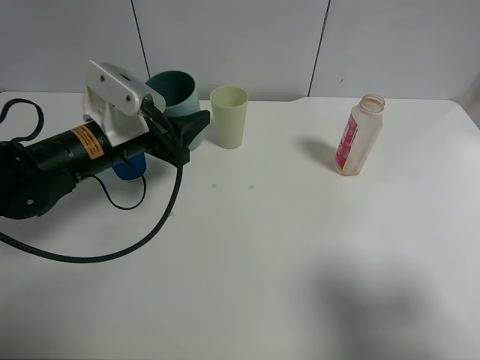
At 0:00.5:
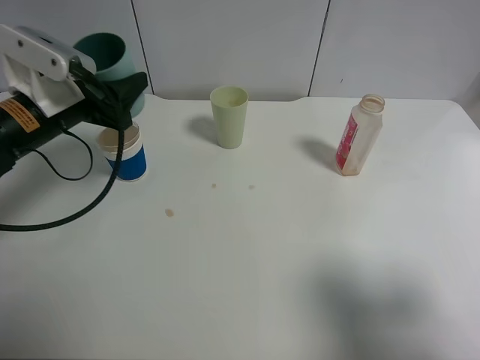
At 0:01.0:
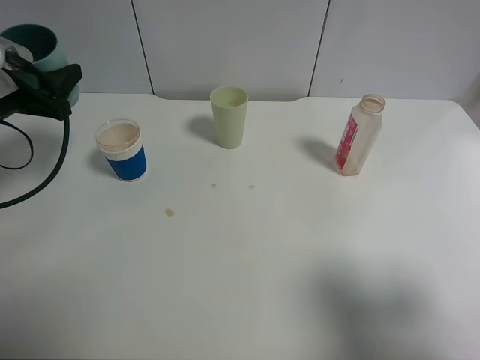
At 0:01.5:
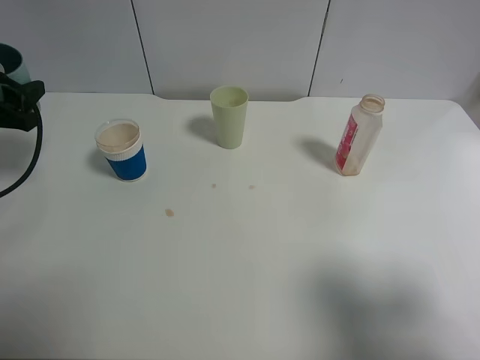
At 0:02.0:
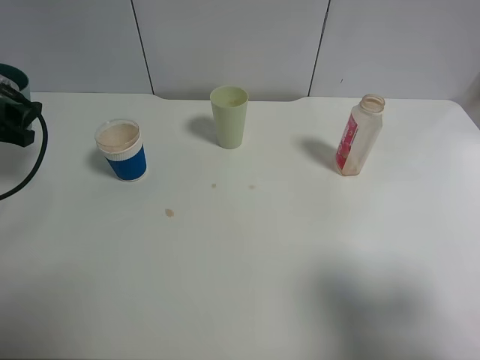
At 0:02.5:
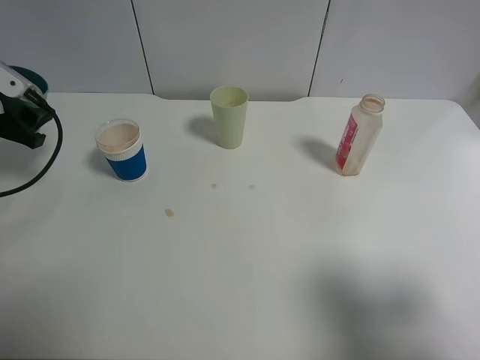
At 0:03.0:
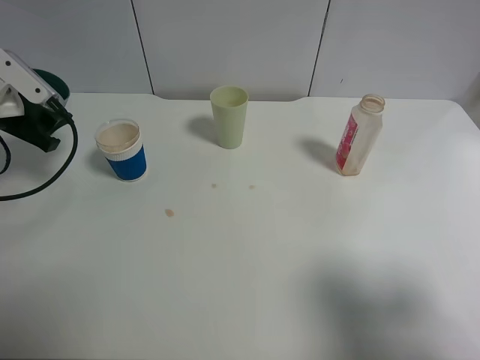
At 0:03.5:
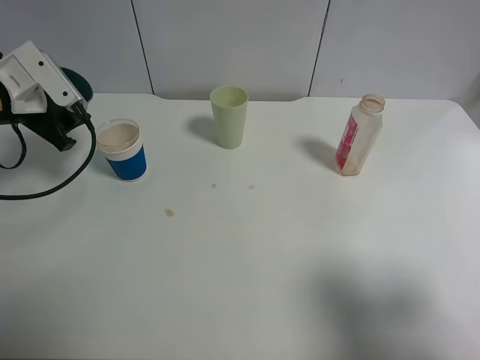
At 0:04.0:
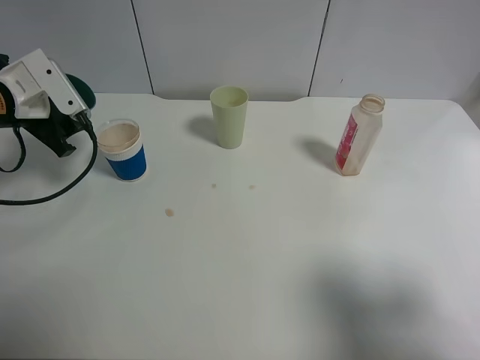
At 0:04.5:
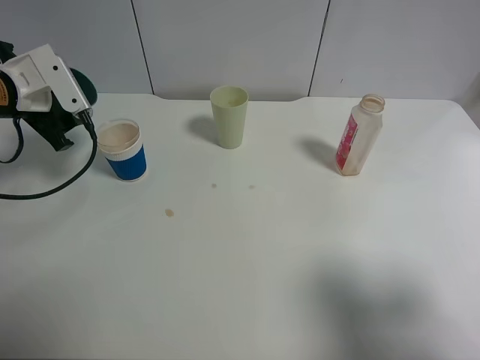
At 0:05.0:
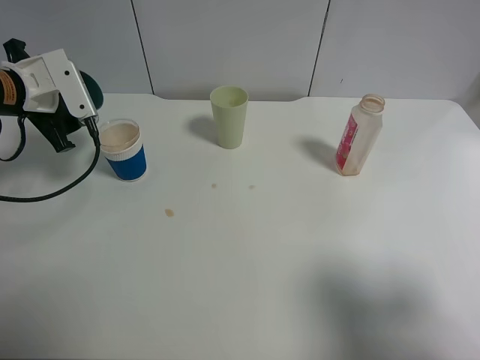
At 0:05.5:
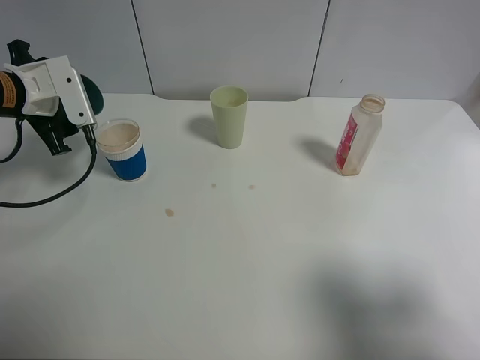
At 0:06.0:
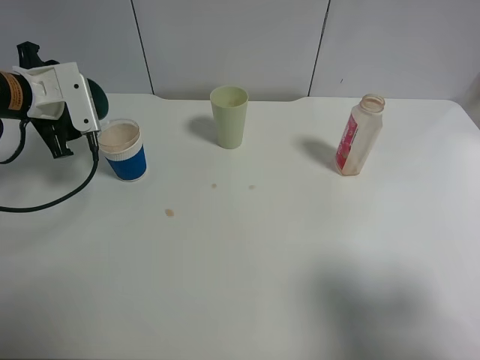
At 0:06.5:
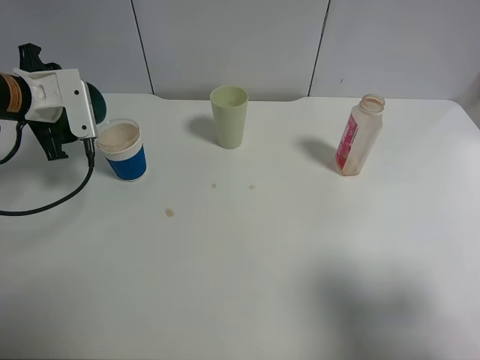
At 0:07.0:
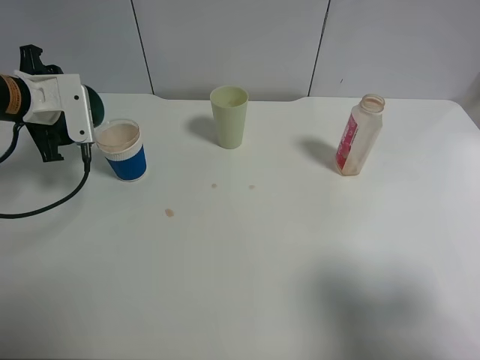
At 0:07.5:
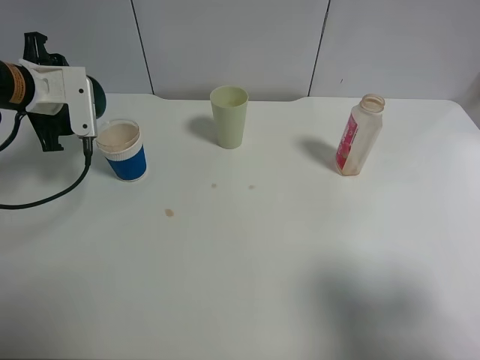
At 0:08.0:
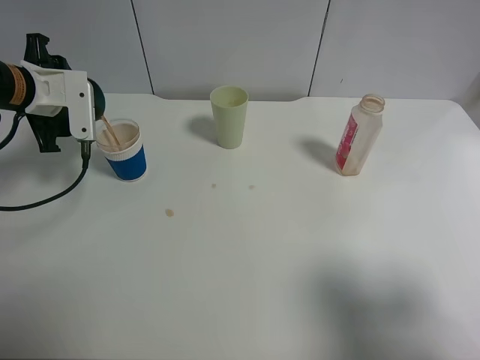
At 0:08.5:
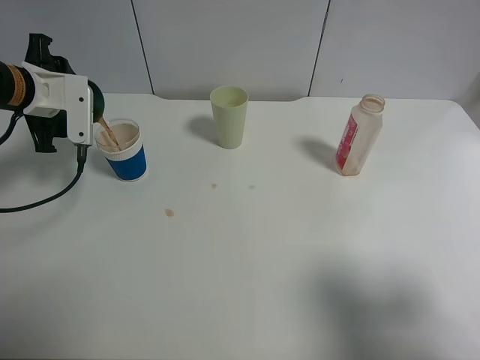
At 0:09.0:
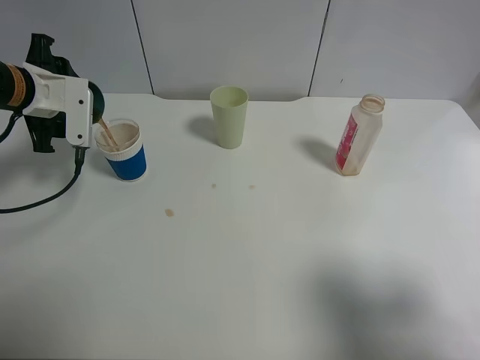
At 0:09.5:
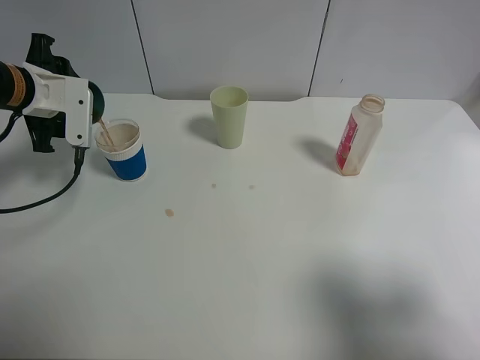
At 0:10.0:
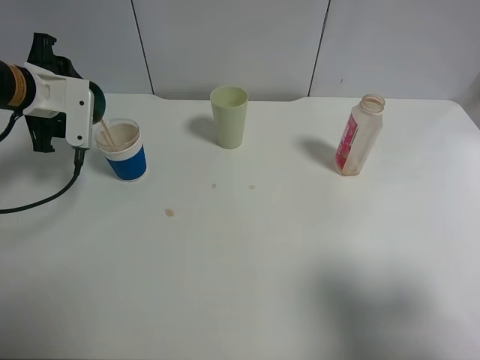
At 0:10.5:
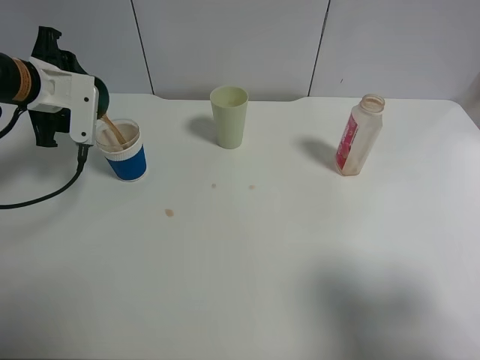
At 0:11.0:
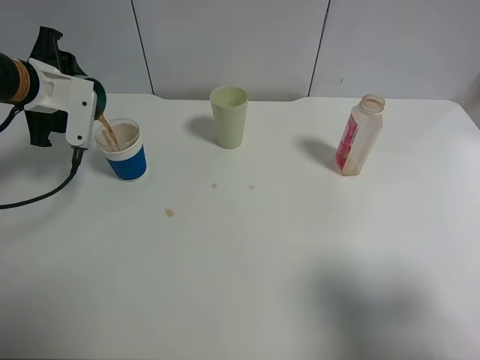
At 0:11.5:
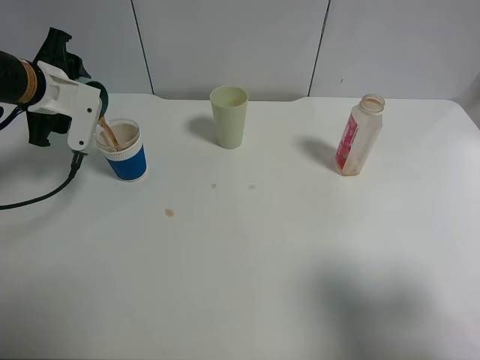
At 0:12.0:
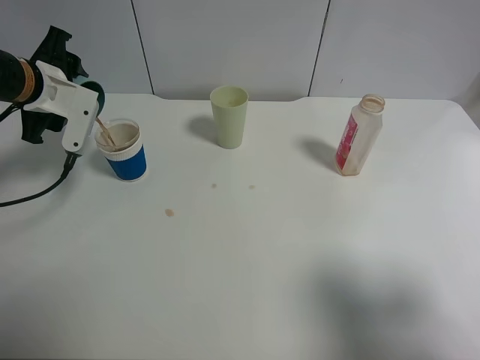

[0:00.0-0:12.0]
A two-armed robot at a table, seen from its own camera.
Task of the whole recording: use a clamp to hold the bottle of the drink, pour the beverage into a random cup, then clamp the cup containing the drink and pour the drink into another random cup.
0:00.0 to 0:02.0: The left gripper goes some 20 cm to the left.
0:02.0 to 0:04.0: The left gripper is displaced to the right by roughly 5 cm.
0:04.0 to 0:06.0: There are only small adjustments of the grippers.
0:06.0 to 0:08.0: The grippers move only a little.
0:08.0 to 0:10.0: The grippers move only a little.
0:10.0 to 0:12.0: The grippers stay close to where they were, moving slightly.

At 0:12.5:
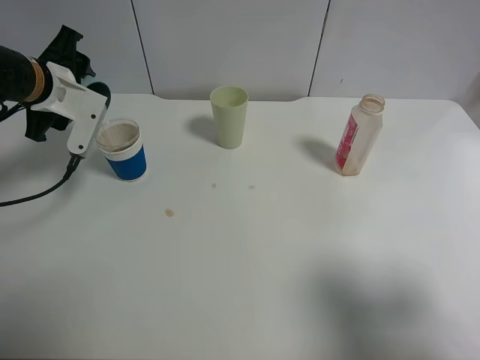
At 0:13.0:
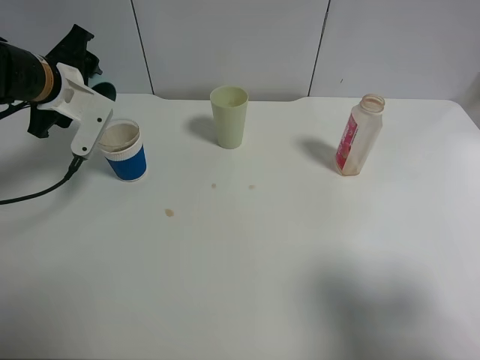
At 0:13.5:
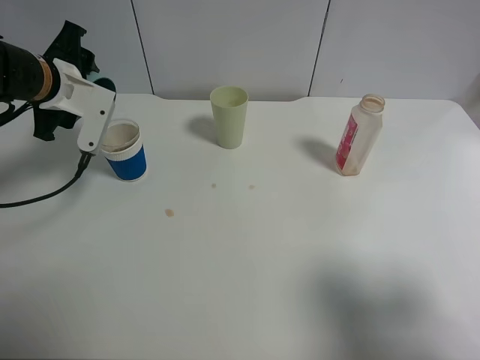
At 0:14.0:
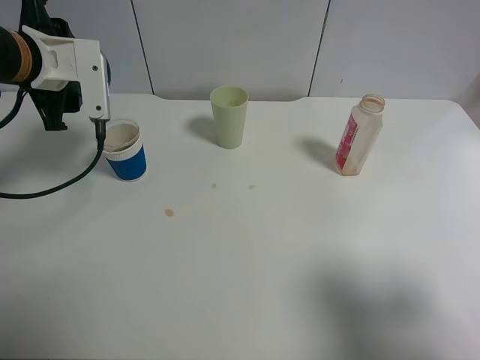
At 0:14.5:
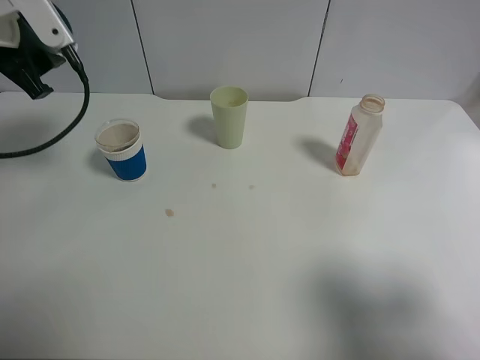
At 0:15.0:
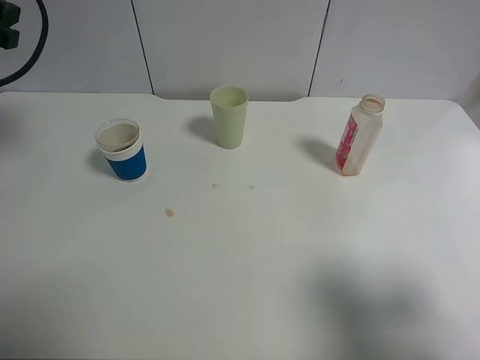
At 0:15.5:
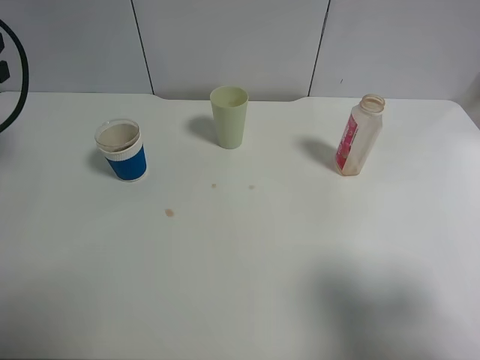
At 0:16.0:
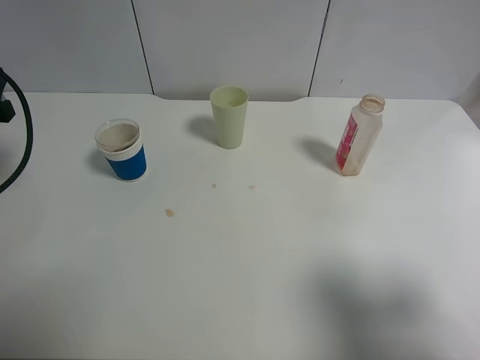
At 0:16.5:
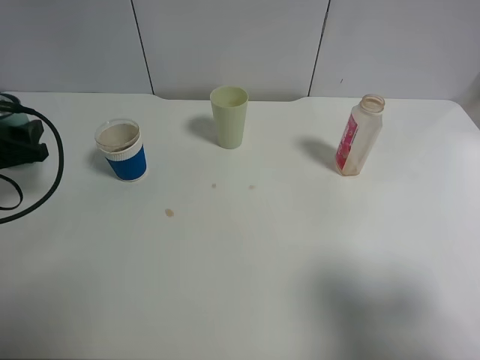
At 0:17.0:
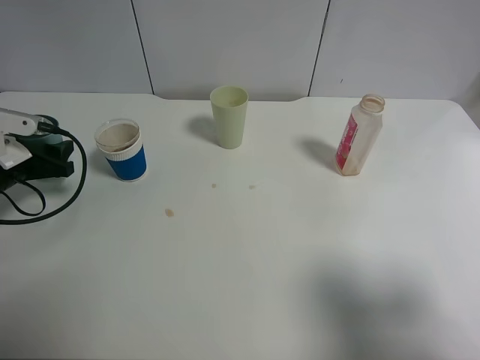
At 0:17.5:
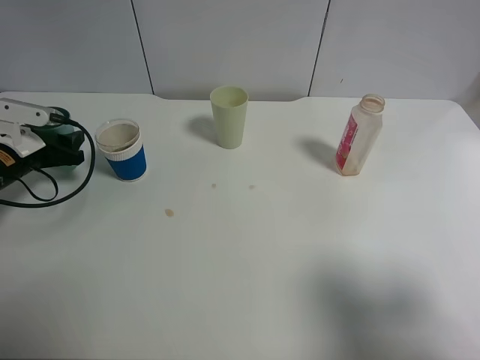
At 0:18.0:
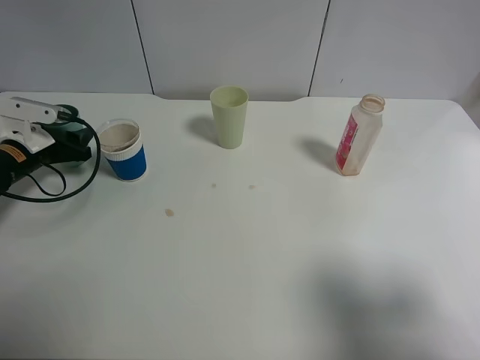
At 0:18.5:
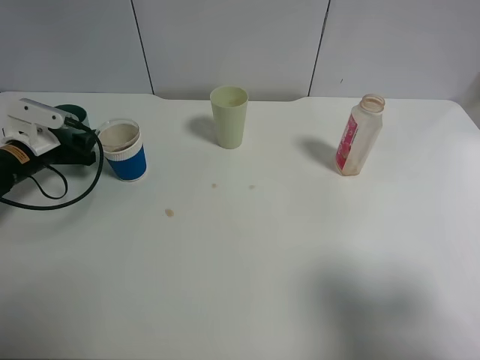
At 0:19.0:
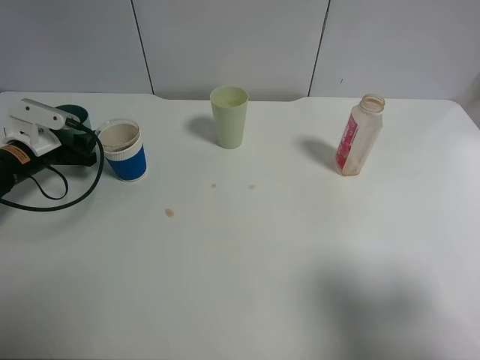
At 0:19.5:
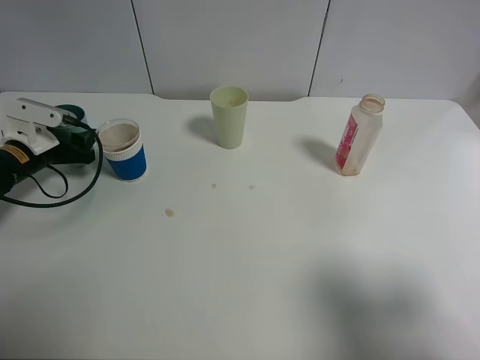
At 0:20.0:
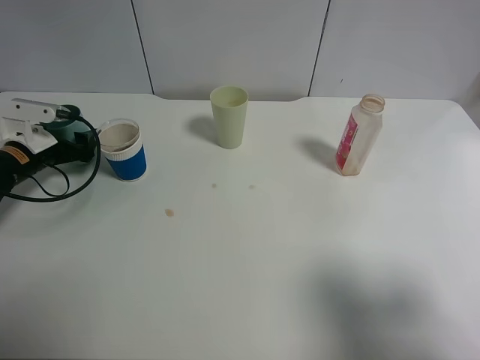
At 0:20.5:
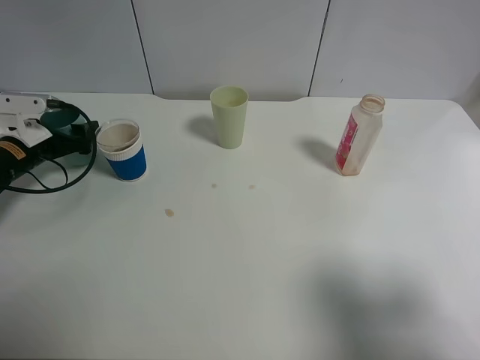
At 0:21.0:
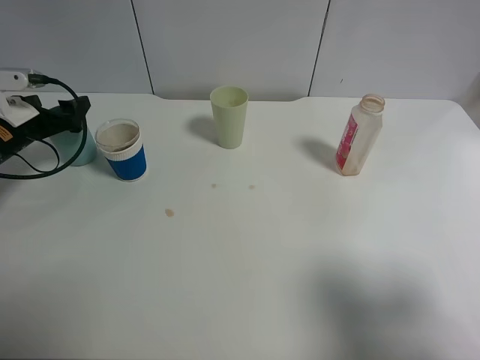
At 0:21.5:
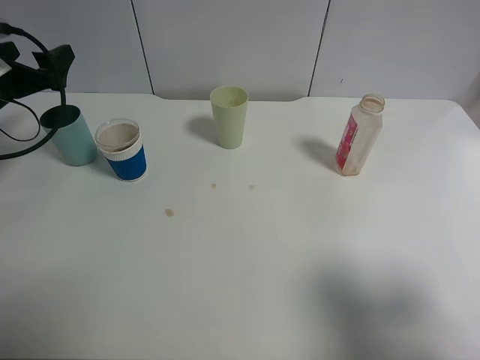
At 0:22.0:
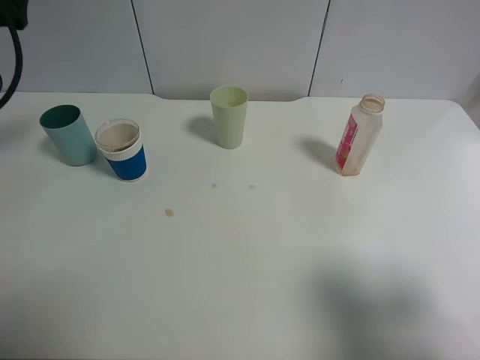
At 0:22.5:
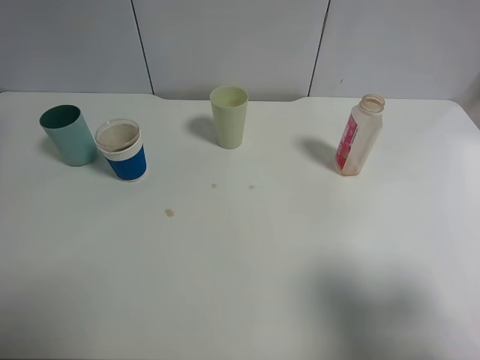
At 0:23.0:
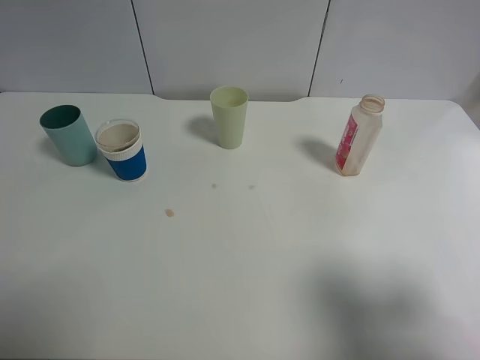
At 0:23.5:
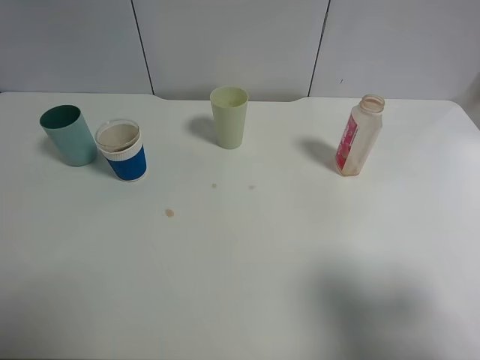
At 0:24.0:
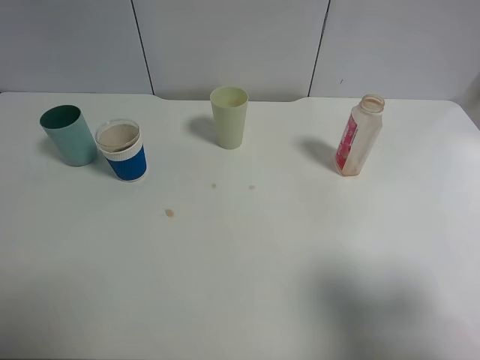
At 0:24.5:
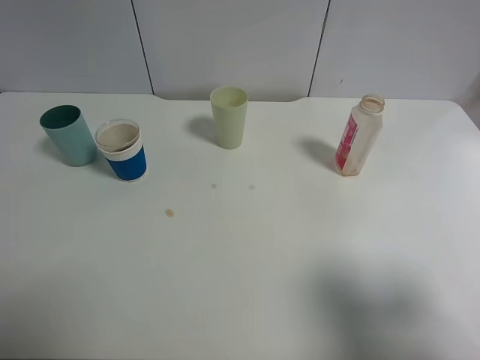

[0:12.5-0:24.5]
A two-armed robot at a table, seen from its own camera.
Task of the whole recording: use a clamp to hold the bottle of the drink, pour the beverage into a random cup, then clamp the cup containing the drink and pour the drink into another random cup.
Step, 0:14.5 to 0:21.5: Place the blue plastic cup on the table with left gripper.
0:12.5 to 0:14.5: The left gripper moves upward, roughly 10 cm.
0:14.5 to 0:16.5: The left gripper travels downward and to the left by approximately 15 cm.
0:16.5 to 0:18.5: The left gripper is displaced forward and downward by approximately 10 cm.
0:18.5 to 0:20.5: The left gripper opens.
0:20.5 to 0:22.5: The left gripper is displaced upward and backward by some 25 cm.

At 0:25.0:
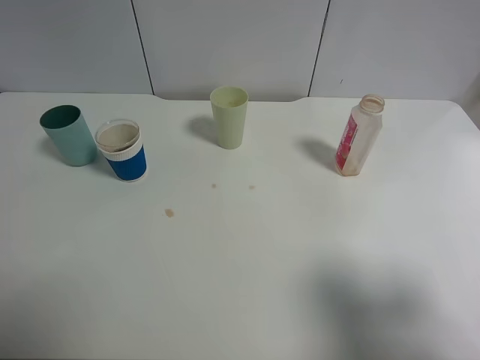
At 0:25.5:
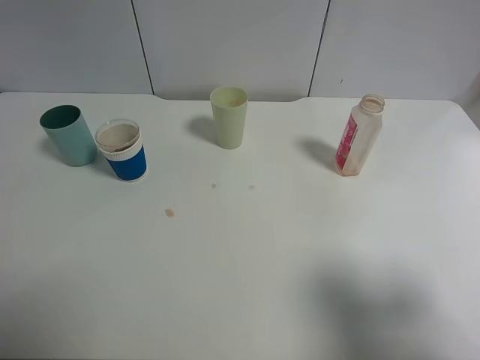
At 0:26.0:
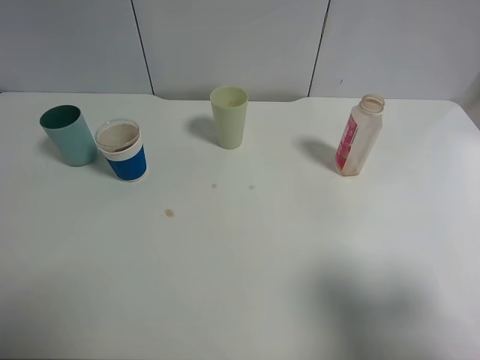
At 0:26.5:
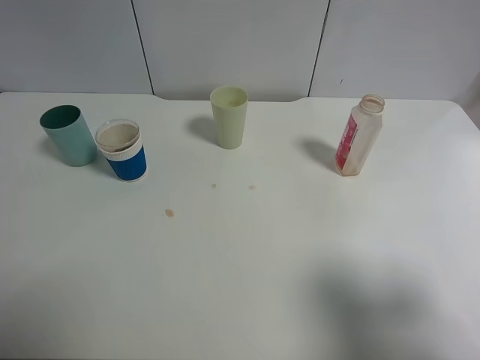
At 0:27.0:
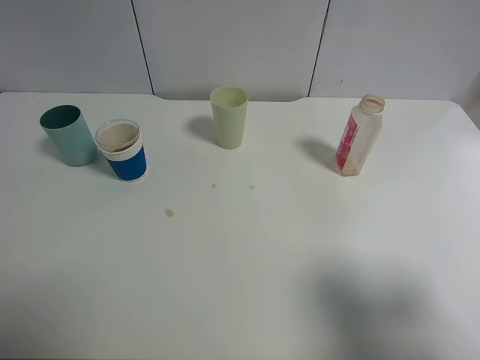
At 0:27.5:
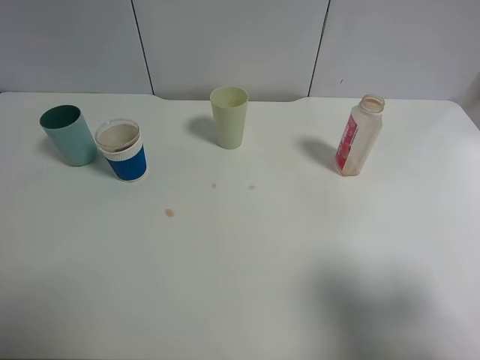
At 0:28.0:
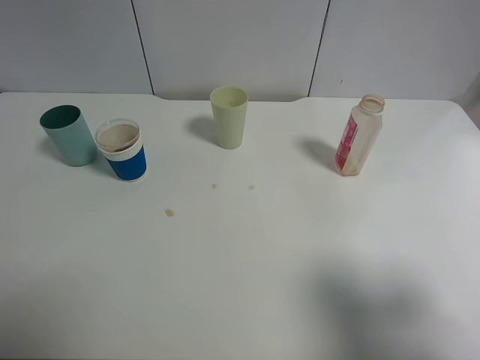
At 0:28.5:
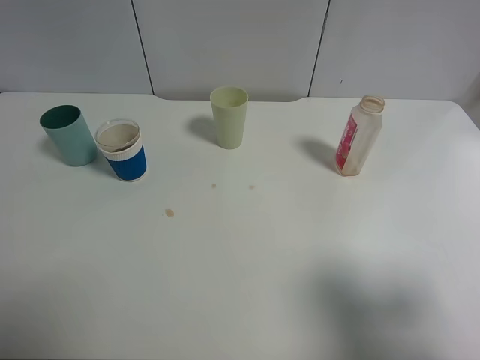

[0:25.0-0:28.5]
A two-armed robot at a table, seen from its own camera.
Task of the whole recording: use a clamp to hold the bottle of the drink, pour the beverage into a random cup, then clamp the cup containing the drink and pour the drink into another random cup.
0:27.0 to 0:28.5: Both grippers stay about where they are.
